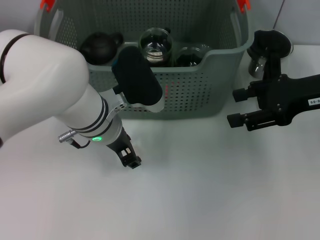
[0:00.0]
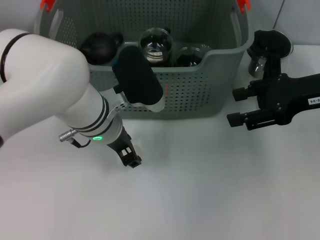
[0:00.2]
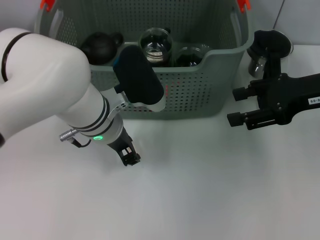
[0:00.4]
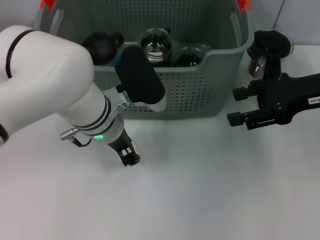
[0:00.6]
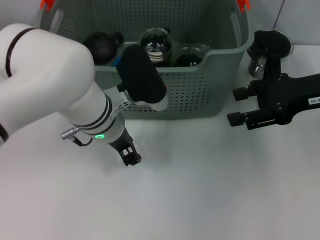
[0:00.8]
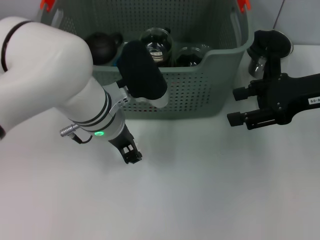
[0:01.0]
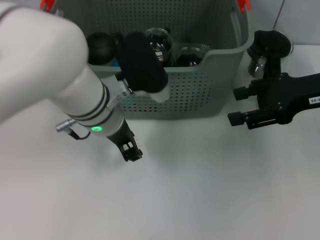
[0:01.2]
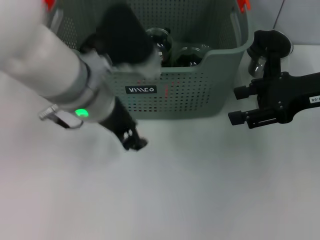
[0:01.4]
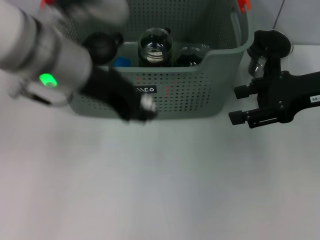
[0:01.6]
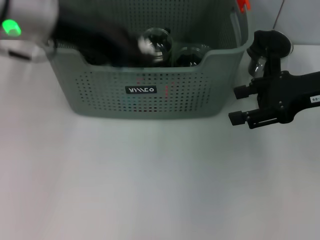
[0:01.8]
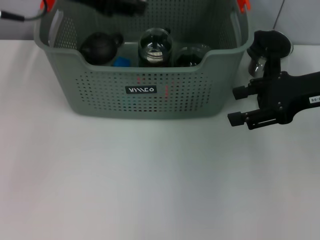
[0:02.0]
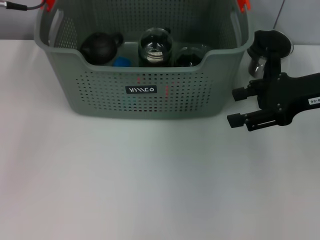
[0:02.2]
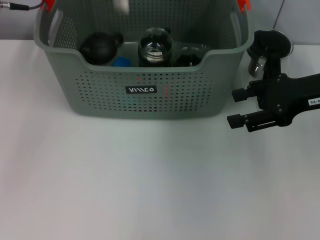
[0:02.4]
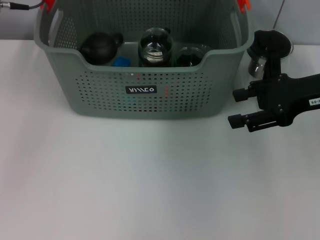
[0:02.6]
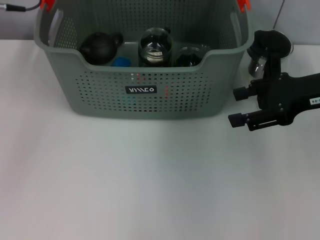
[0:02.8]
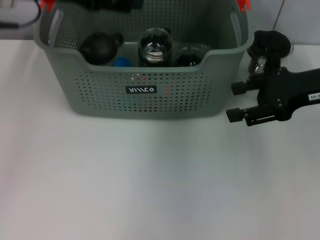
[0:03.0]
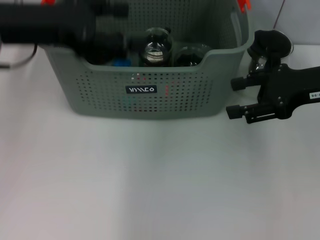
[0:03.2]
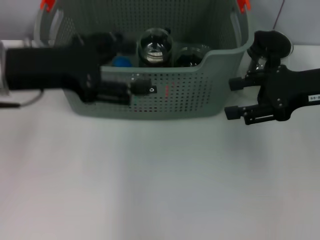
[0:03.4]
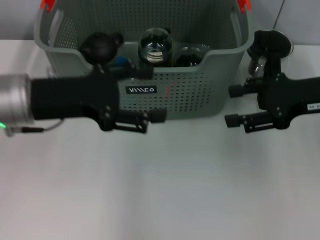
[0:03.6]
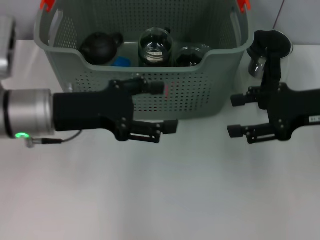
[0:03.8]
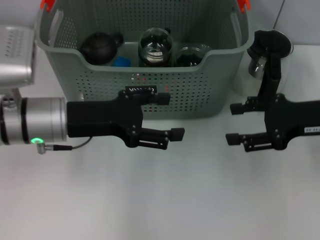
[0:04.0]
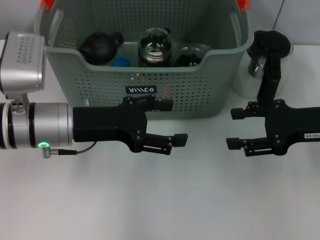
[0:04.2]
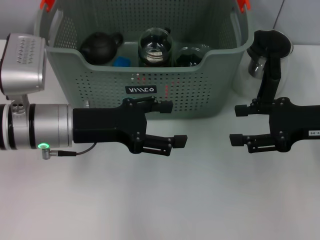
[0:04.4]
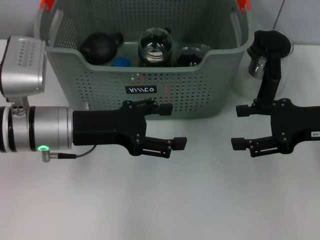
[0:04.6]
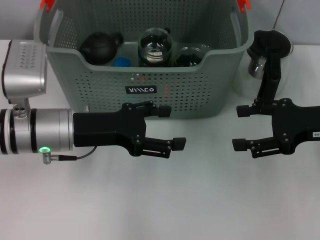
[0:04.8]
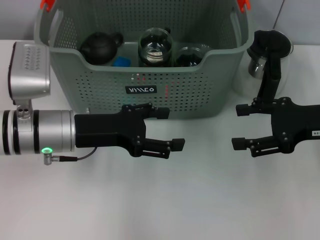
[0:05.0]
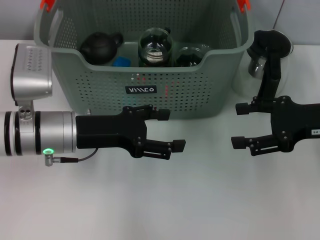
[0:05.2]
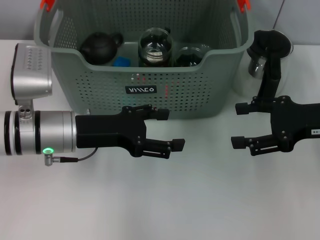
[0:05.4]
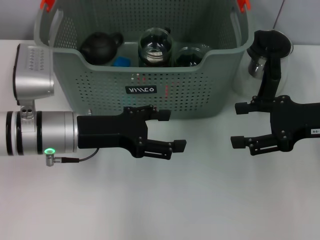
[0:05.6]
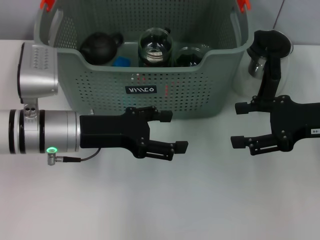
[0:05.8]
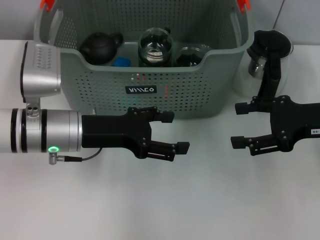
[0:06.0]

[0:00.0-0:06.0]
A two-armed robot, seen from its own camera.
Task of the whole recording: pick up the teacup on the table and place it into the storage bin, pick up the block on the table and place it into the storage bin.
Step, 0:00.8 to 0:02.4: Place the white block in the storage box with left gripper.
0:00.0 to 0:01.6: The left gripper is displaced upward by some 15 cm.
0:01.6 to 0:03.0: The left gripper is displaced to the left and forward by some 10 cm, and opens.
0:03.0 to 0:04.4: The right gripper travels downward by approximately 5 cm; the left gripper shifts about 15 cm downward and backward.
0:04.4 to 0:06.0: The grippers move only a little.
